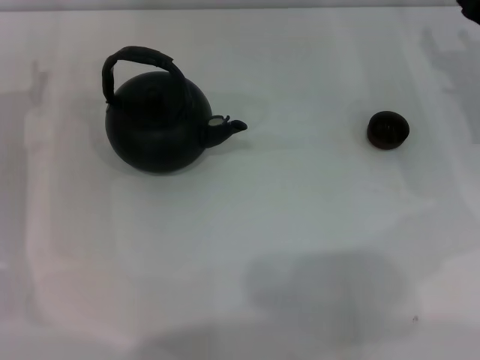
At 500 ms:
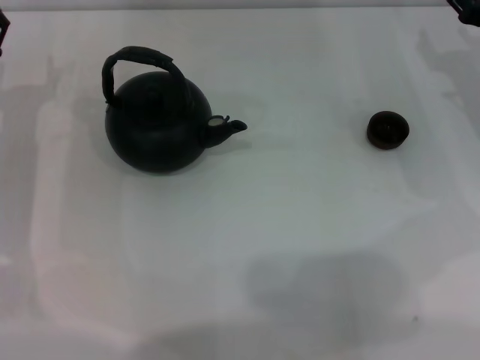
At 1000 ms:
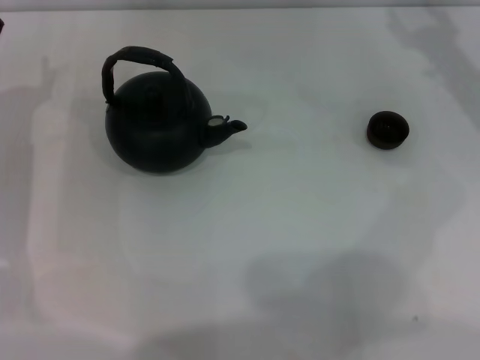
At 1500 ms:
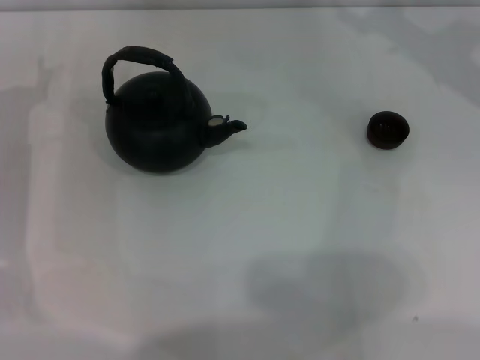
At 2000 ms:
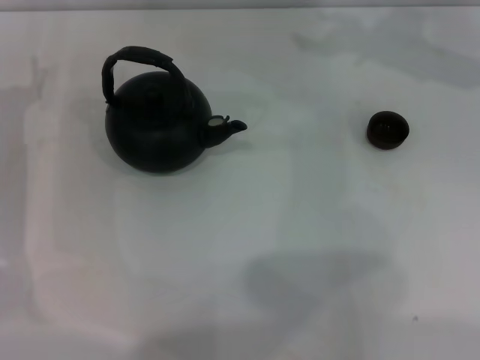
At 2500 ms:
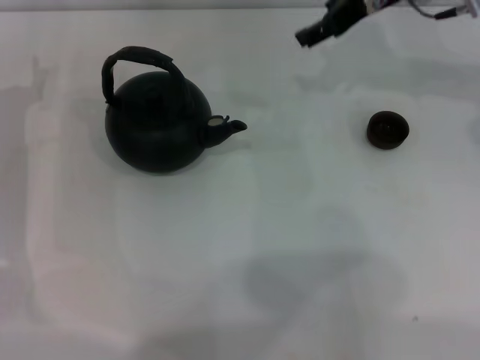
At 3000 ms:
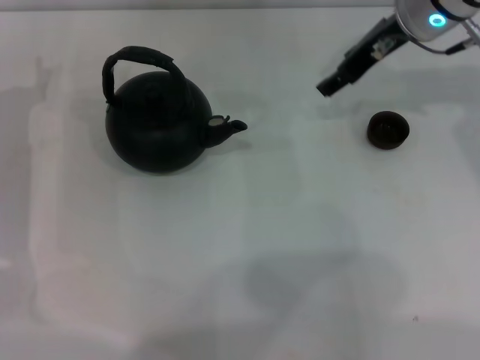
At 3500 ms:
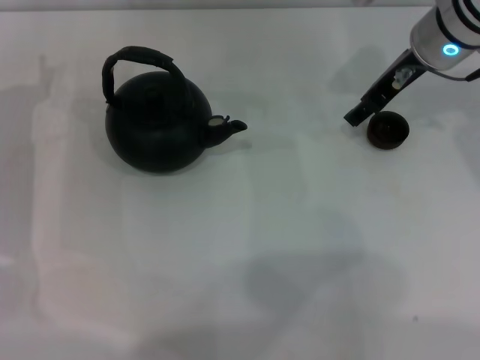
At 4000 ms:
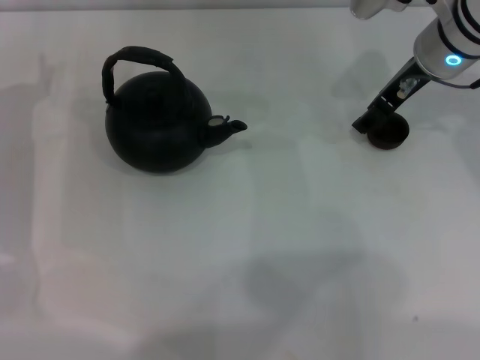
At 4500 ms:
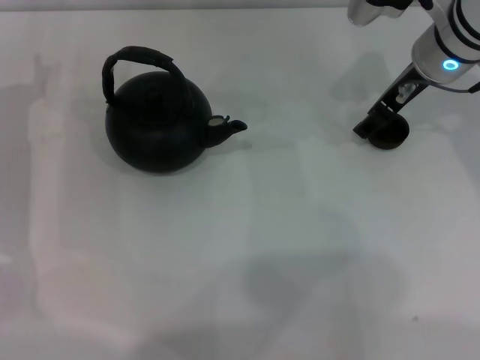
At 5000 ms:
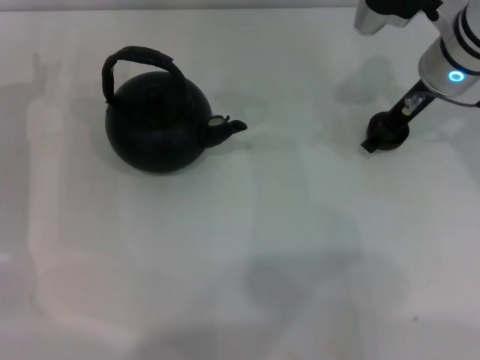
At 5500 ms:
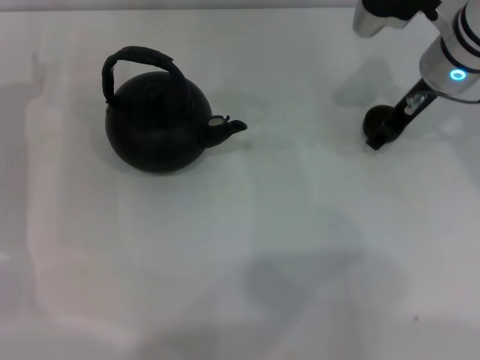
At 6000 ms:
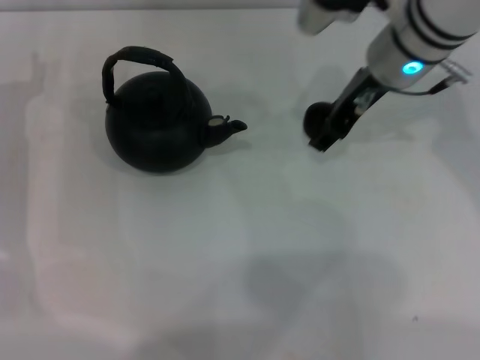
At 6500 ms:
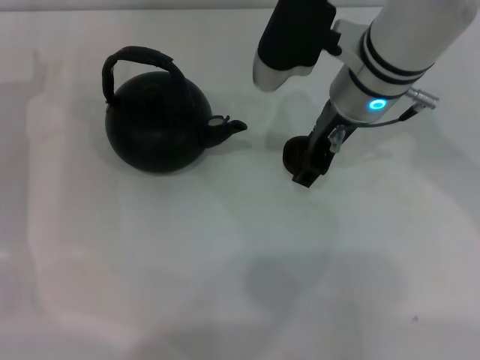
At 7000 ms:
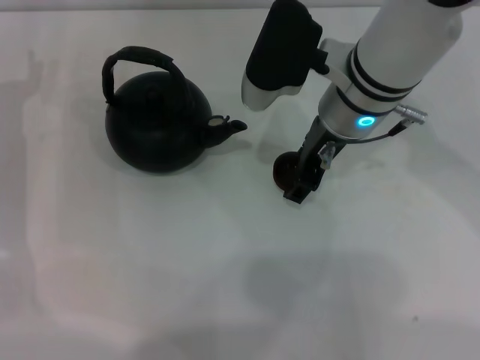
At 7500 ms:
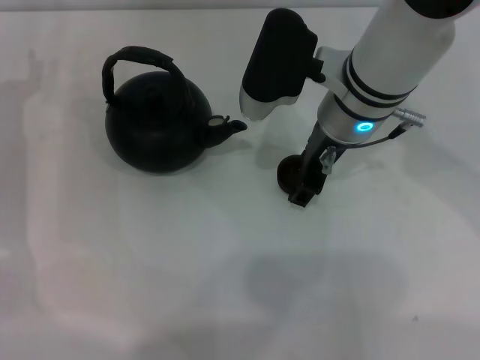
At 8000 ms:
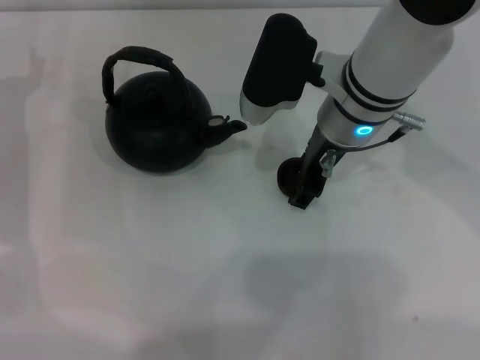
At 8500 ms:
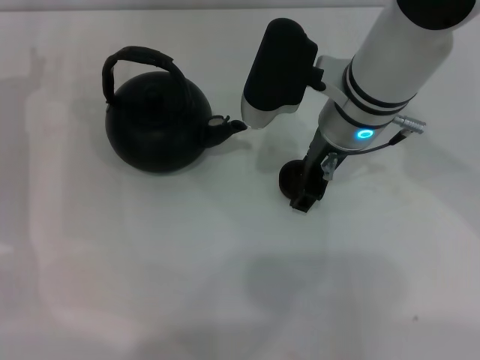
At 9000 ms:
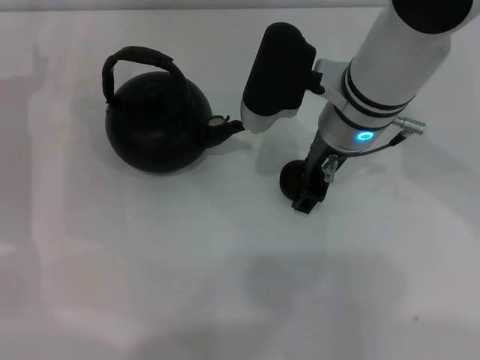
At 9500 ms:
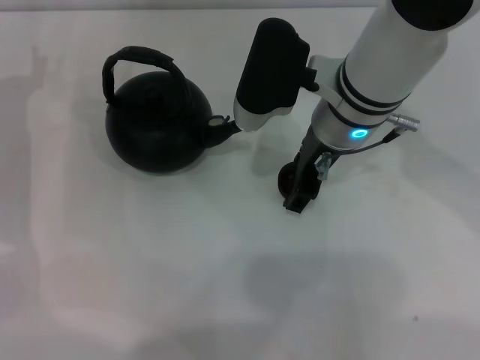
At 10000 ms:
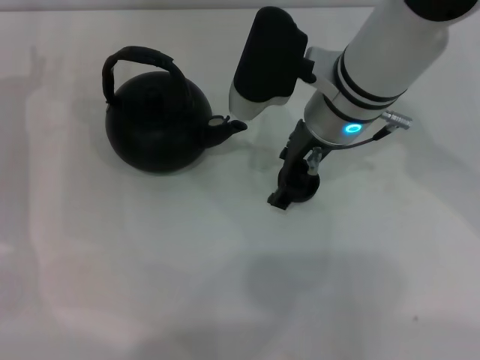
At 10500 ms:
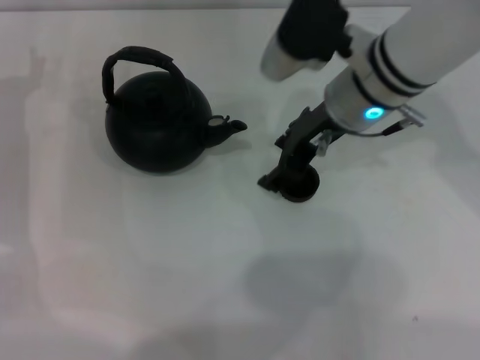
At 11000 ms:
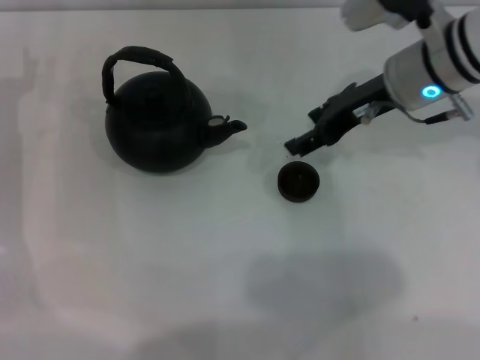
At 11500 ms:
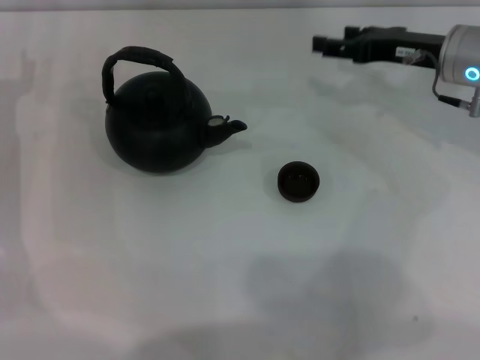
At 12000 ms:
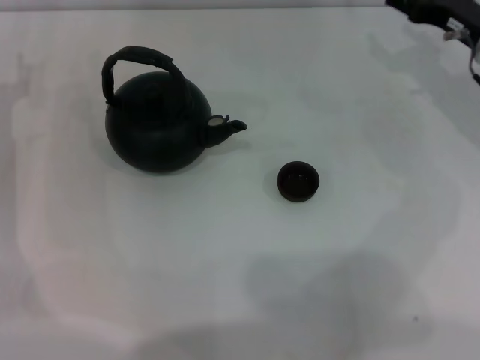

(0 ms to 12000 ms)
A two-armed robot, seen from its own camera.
Task of the whole recording: Grasp the handle of the teapot with one hand and pour tea into the teacup.
Step, 0 ms - 5500 ms: Pick up the teacup with the right gripper.
Step, 6000 ms - 11000 ms: Place the teacup in the center of view with the right gripper.
2000 ms - 4000 ms: The right gripper goes some 5 cm downward.
4000 ms - 6000 ms: The right gripper shifts about 5 cm to the left.
6000 ms - 8000 ms: The right gripper ends up roughly 5 cm from where it was.
8000 ms - 10000 ms: The grippers move only a little.
10000 ms - 12000 ms: The right gripper moves to the right, roughly 20 cm.

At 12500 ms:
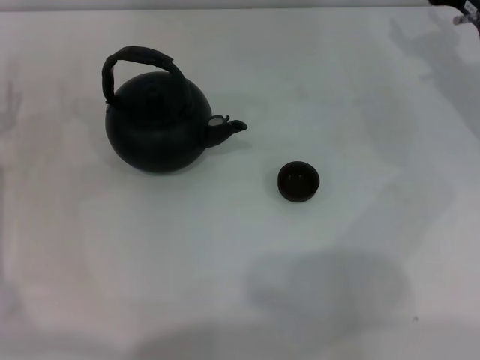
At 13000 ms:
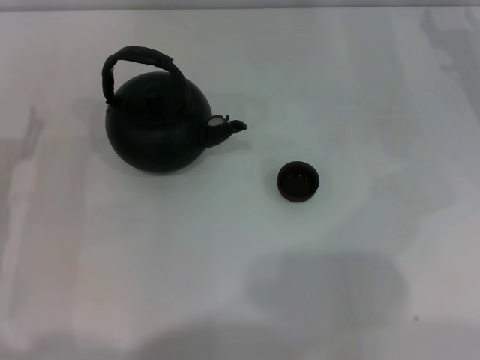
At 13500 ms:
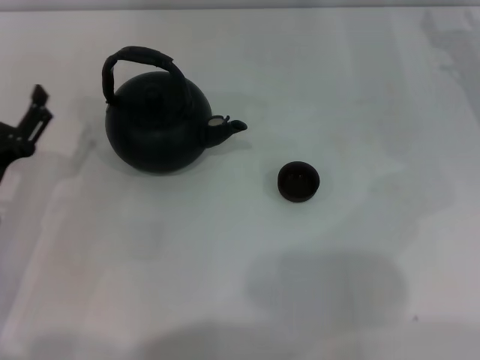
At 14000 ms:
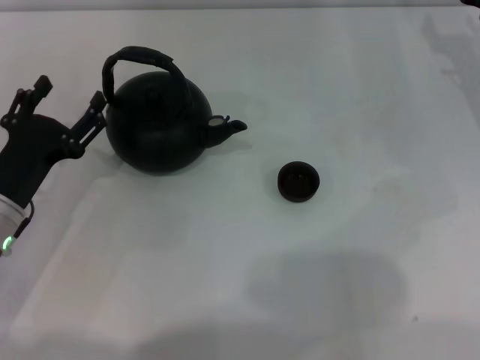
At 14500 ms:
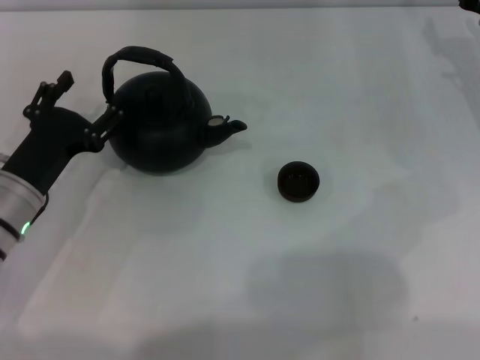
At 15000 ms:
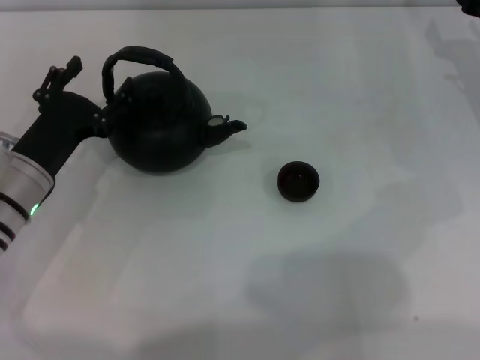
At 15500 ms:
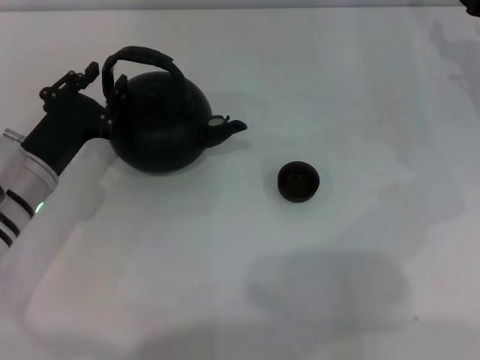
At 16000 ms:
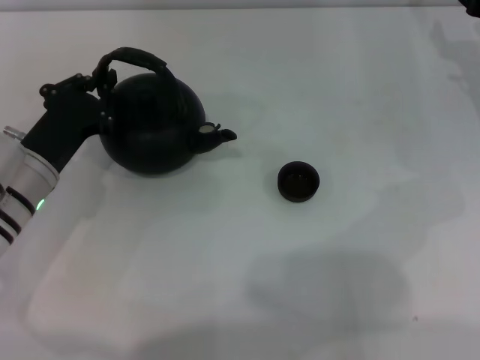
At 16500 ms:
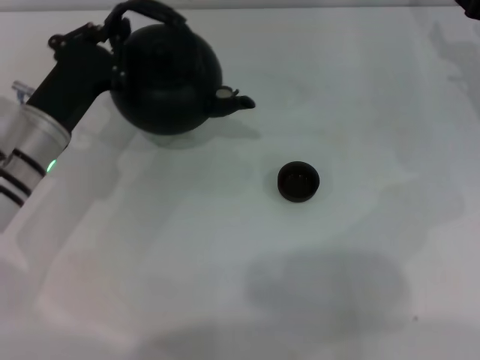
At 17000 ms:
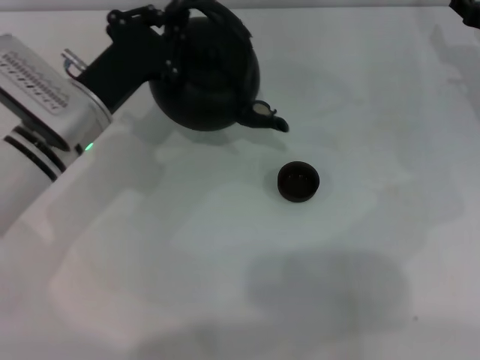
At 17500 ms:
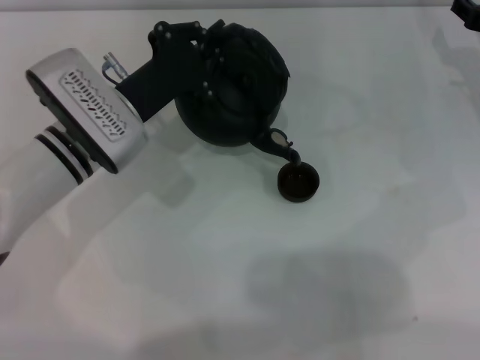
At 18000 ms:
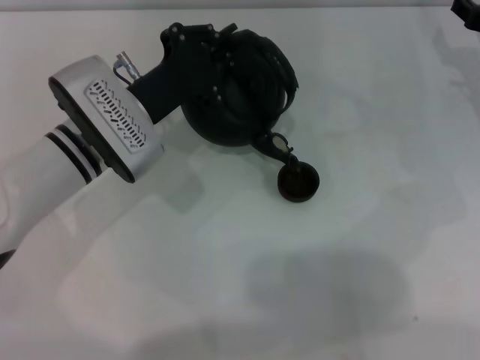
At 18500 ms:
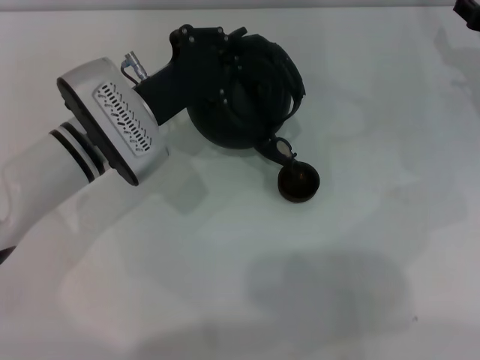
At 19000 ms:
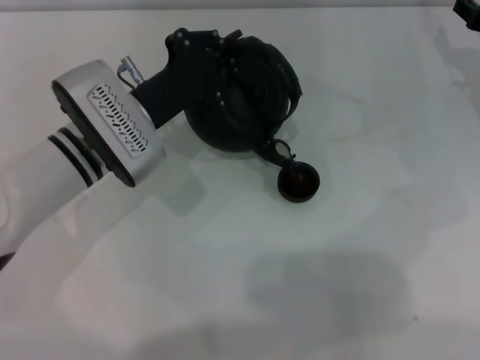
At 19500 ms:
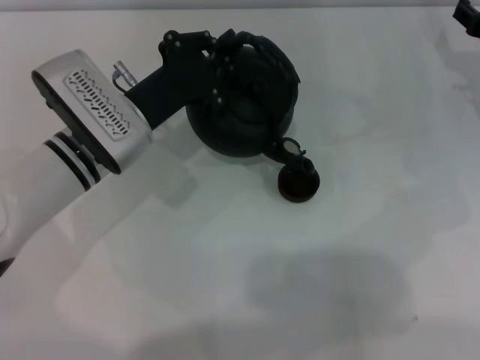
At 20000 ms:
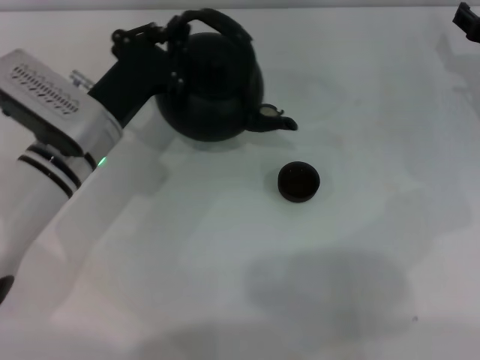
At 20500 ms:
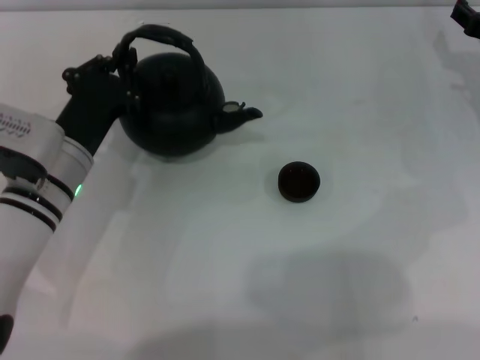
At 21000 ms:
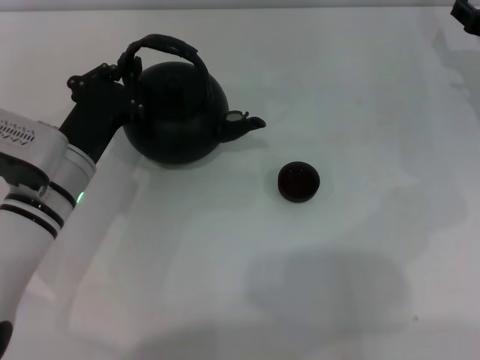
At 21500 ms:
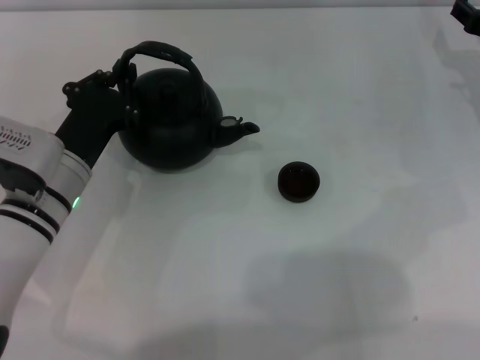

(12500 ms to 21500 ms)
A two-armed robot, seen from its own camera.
Task of the whole recording: Grasp the handle of the teapot with one hand and pour tea into the teacup.
Step, 12500 ms - 16000 ms: Pick up the teapot with the left gripper.
Step, 16500 ms - 20000 ms: Pour tea into the teacup with the left gripper.
12500 ms - 14500 ms: The left gripper is displaced to the right by roughly 5 cm.
14500 ms - 17000 ms: The left gripper heads forward and to the right, covering about 10 cm, and closes its fingers.
19500 ms - 21500 ms: The left gripper ends up approximately 5 cm from where it was.

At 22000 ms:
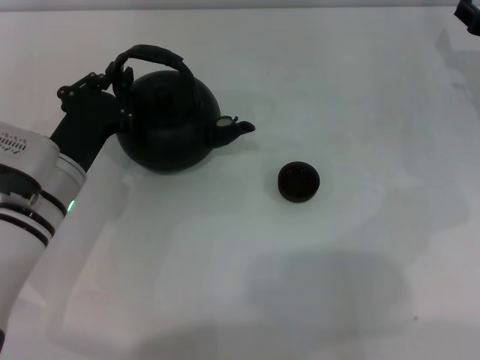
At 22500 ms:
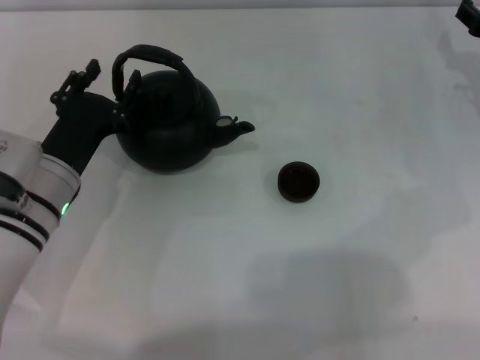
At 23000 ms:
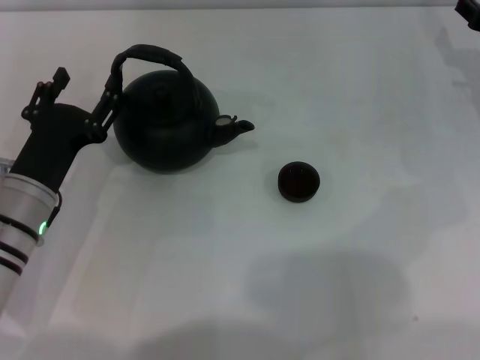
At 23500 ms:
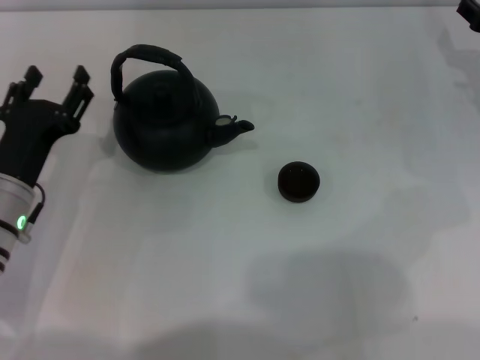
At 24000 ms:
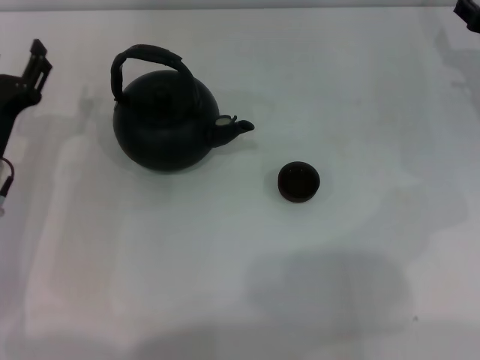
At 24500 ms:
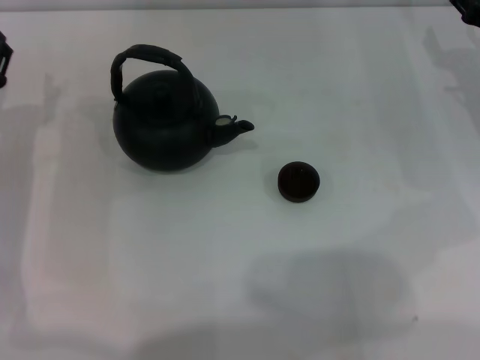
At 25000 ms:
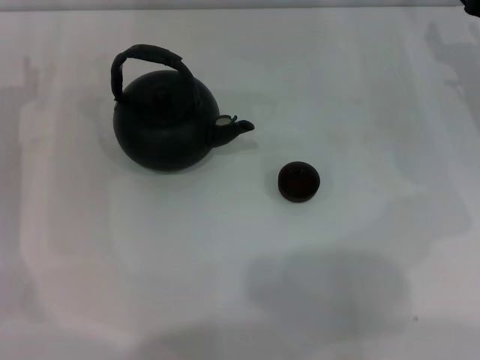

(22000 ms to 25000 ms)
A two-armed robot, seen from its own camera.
Task of the whole recording: Grasp the handle of the teapot with one hand and pour tea into the teacup.
22000 ms - 23500 ms: The left gripper opens its fingers.
23500 ms - 25000 ms: The left gripper travels forward and to the left by about 10 cm.

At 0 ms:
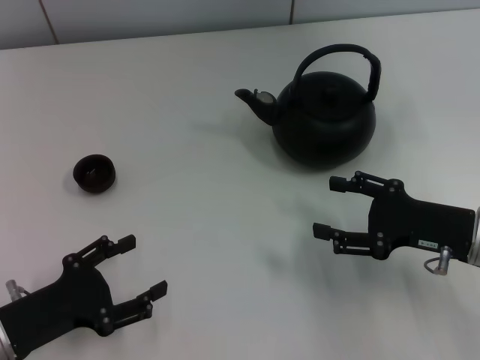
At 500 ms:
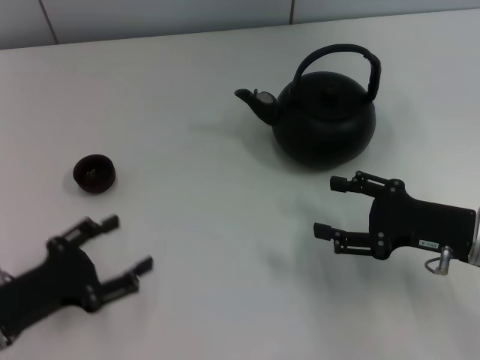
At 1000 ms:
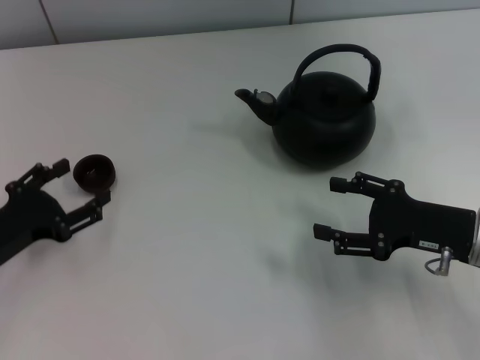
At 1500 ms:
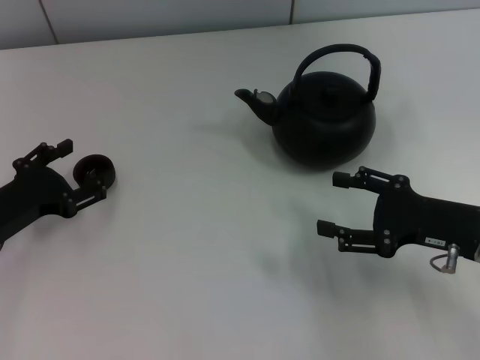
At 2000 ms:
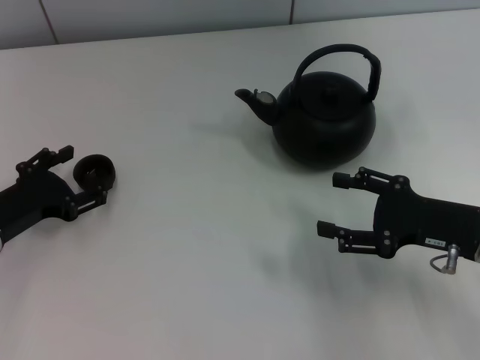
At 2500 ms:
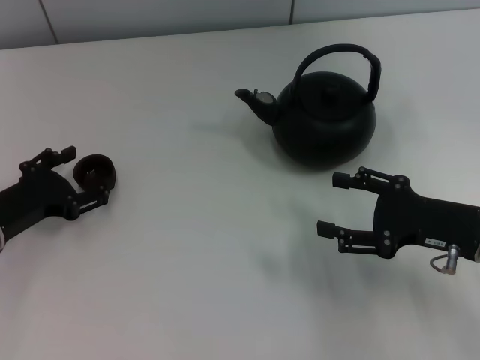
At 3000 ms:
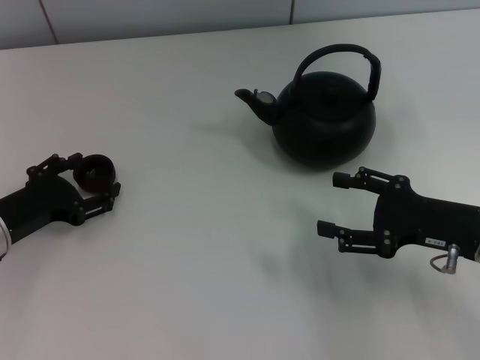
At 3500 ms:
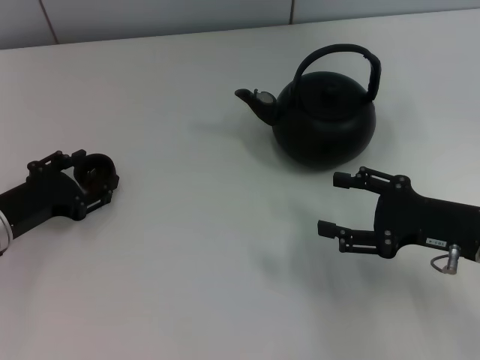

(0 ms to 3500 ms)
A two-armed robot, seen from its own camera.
Task of the whole recording: Grasp the handle of the teapot with one hand and pour tea into the teacup.
0 ms - 2000 ms: The left gripper is displaced forward by some 10 cm.
2000 ms - 3500 ms: The left gripper closes.
